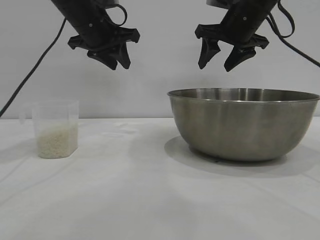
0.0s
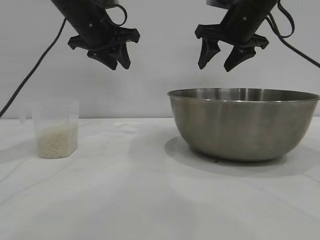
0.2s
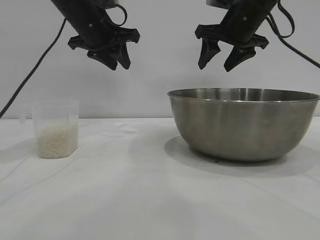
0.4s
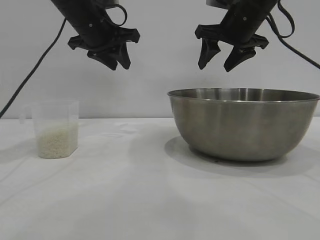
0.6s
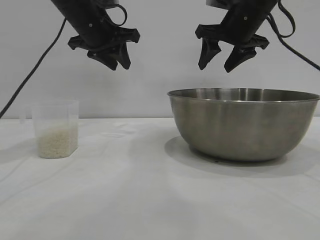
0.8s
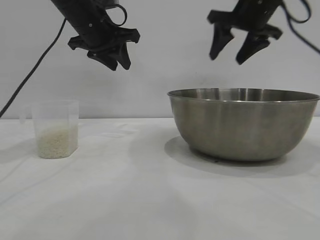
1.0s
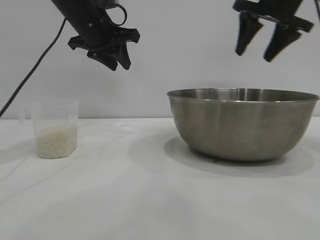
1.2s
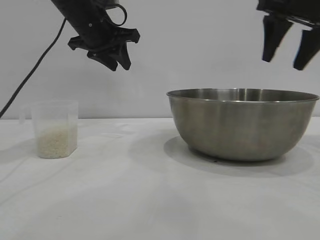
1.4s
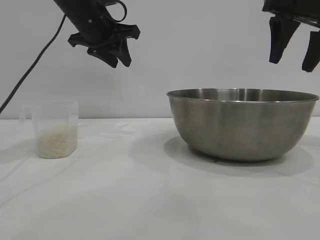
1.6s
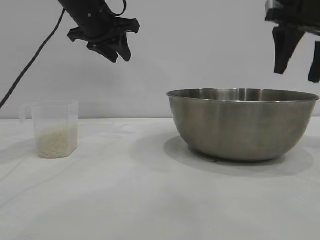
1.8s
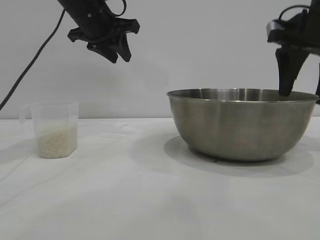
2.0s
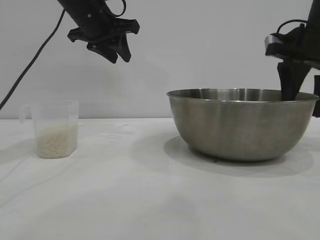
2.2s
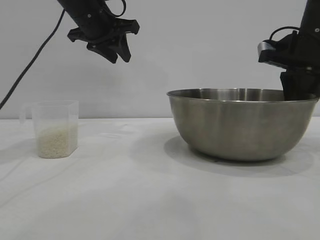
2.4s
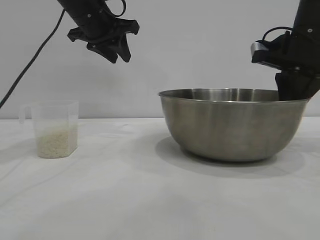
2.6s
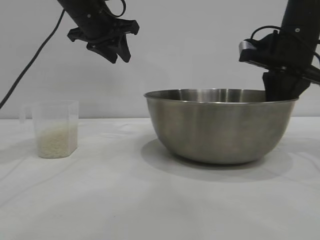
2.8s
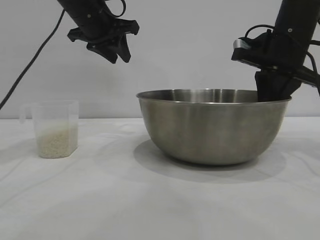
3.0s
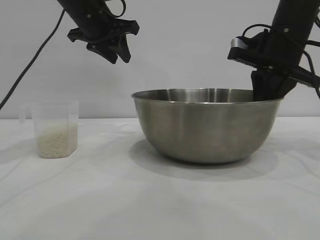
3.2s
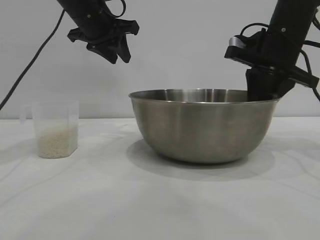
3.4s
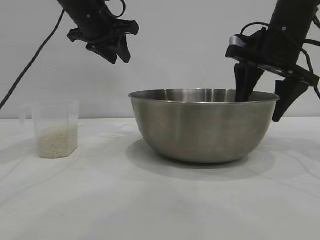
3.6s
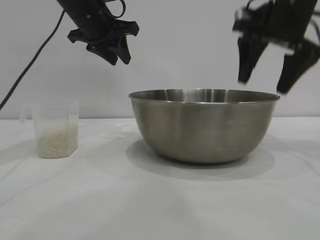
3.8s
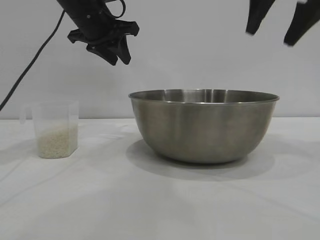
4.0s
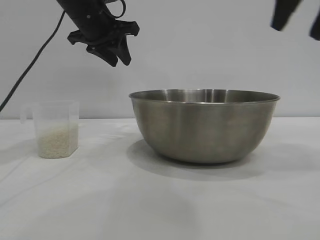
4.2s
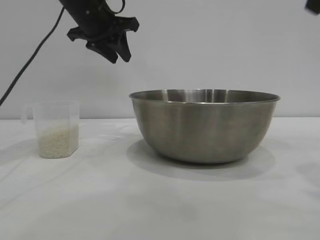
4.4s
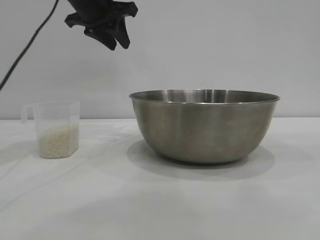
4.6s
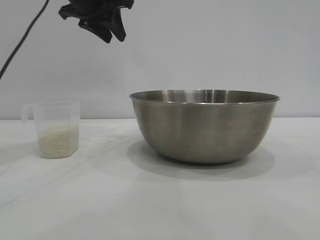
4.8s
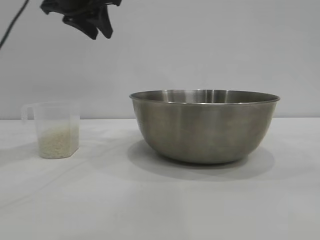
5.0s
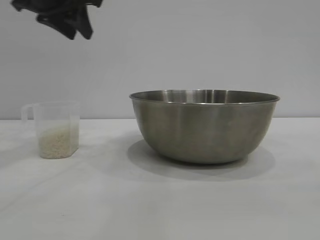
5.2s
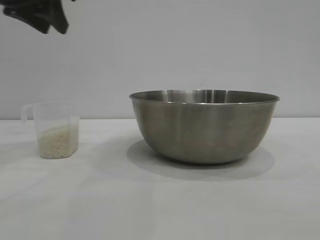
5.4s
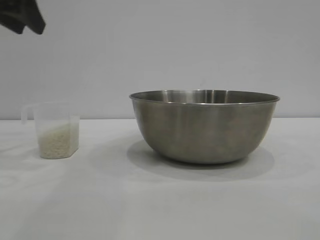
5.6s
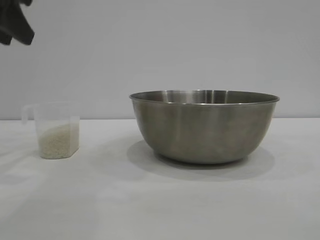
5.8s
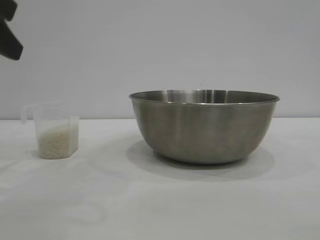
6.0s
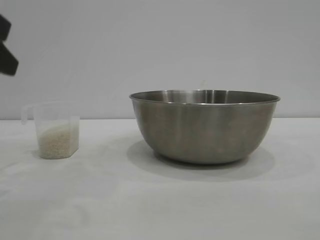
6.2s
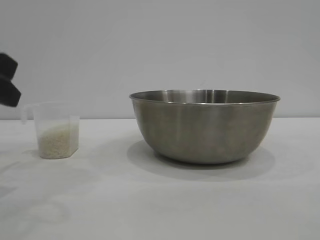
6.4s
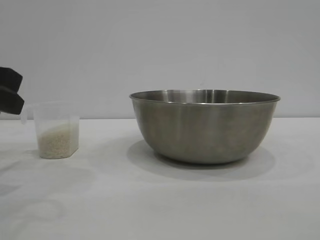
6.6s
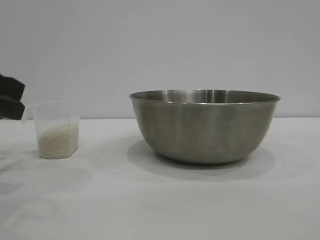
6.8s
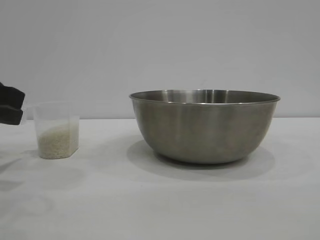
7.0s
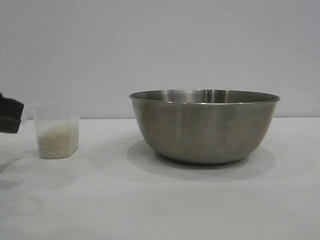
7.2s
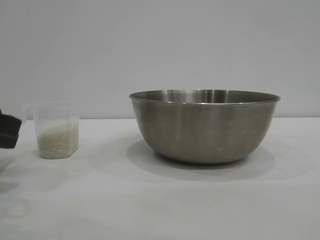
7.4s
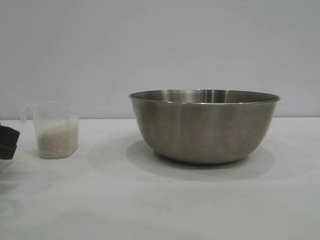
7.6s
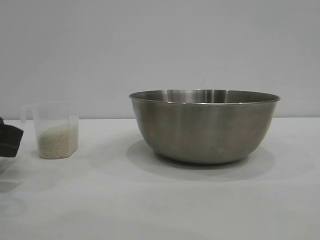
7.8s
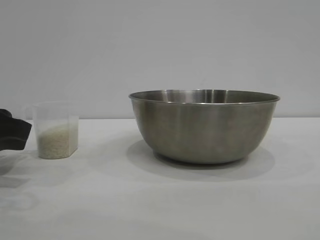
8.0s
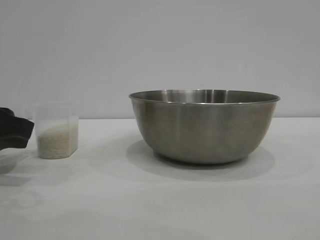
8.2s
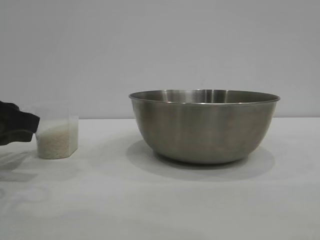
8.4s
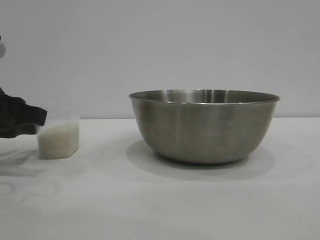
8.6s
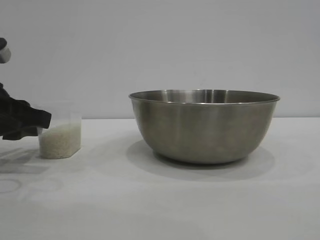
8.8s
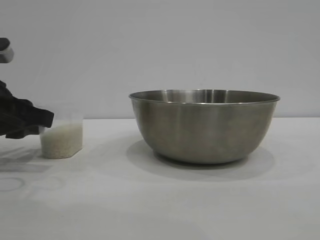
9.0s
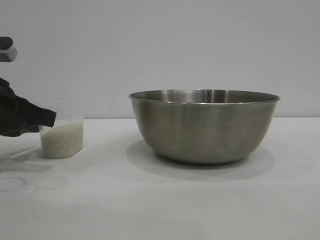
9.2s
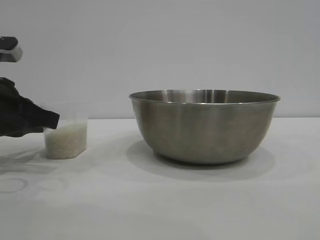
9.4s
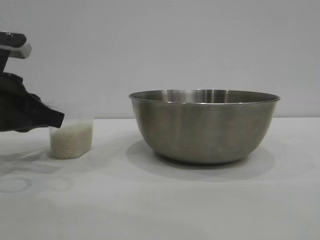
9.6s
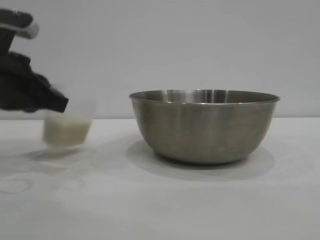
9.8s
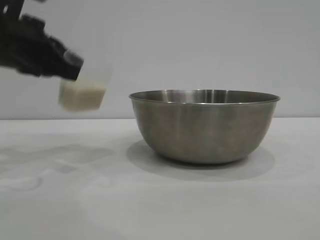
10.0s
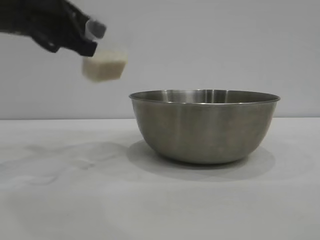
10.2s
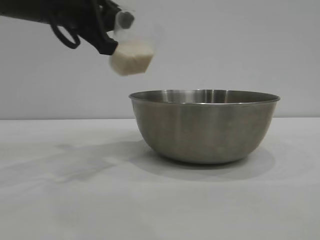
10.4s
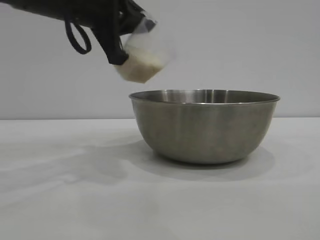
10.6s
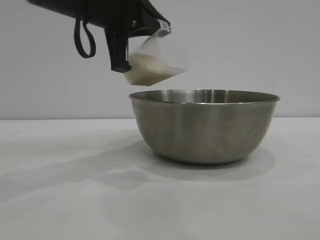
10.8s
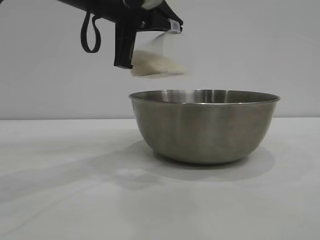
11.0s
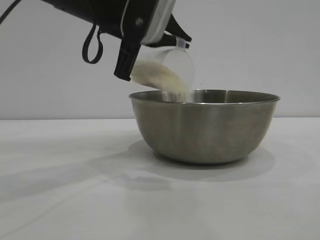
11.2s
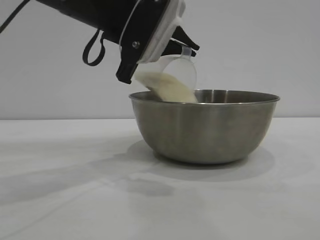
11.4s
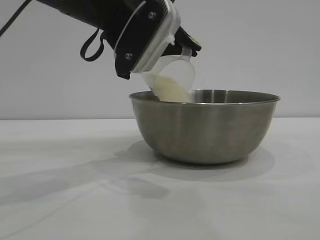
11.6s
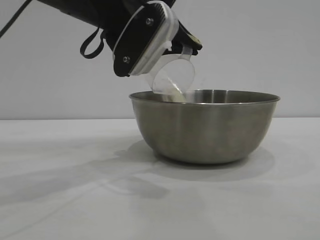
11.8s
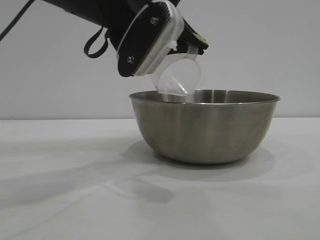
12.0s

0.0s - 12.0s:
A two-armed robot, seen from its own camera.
Task of the whole recording: the right gripper grasp the rice container and place it in the center of the table, the left gripper grasp the rice scoop and pour the rice into the rice container.
Step, 0.0s - 3.8s: Move the bowl to the center of view with the right gripper.
Step, 4.0s - 9.8s: Pick up the cup with rice in it with the left gripper.

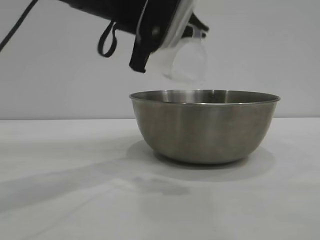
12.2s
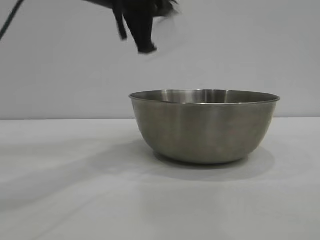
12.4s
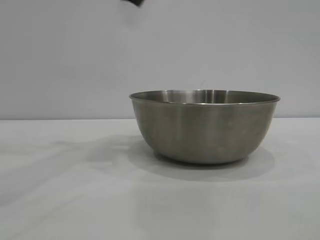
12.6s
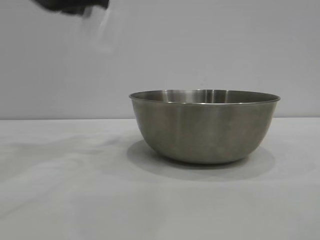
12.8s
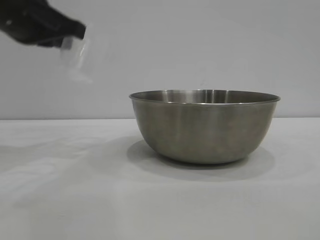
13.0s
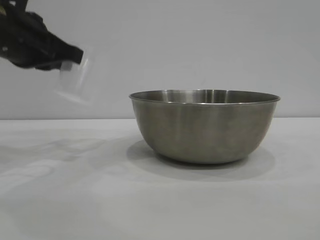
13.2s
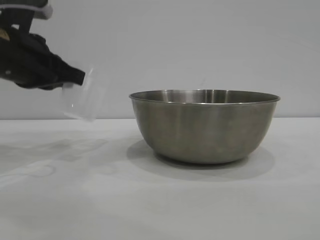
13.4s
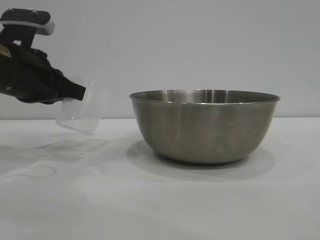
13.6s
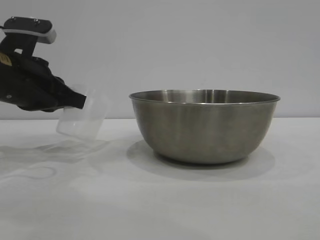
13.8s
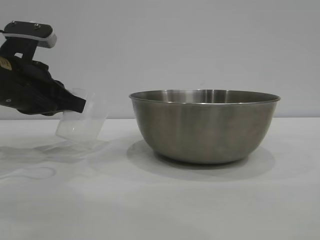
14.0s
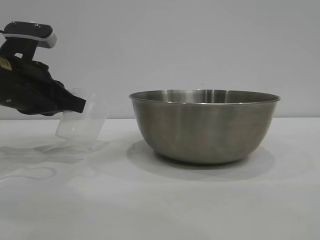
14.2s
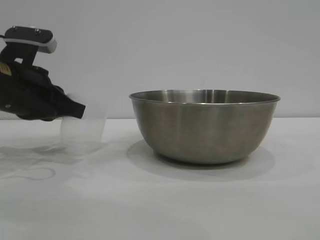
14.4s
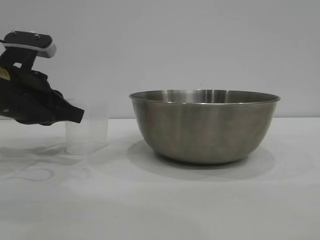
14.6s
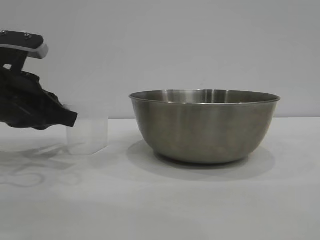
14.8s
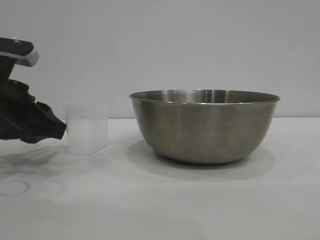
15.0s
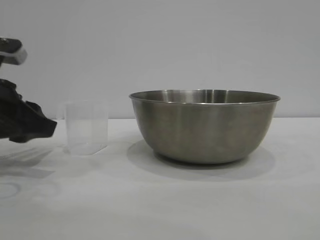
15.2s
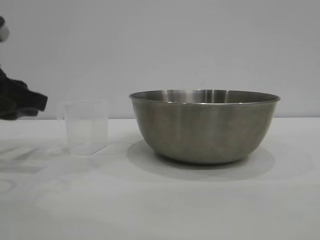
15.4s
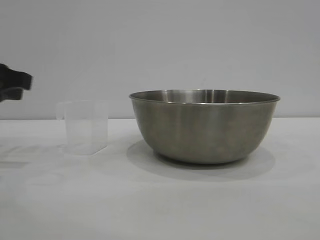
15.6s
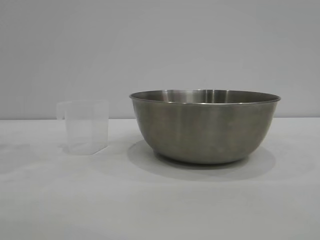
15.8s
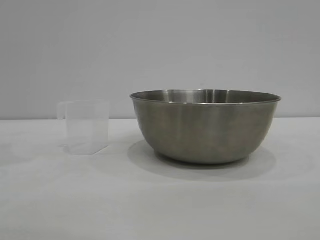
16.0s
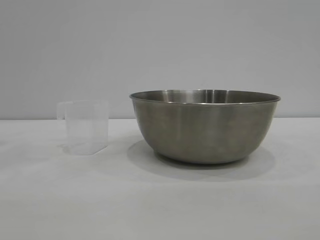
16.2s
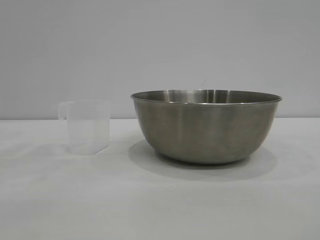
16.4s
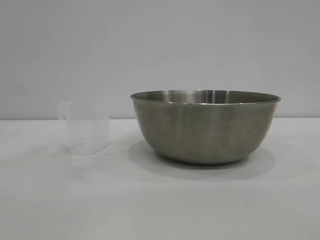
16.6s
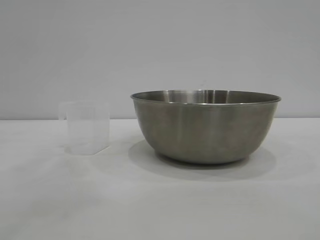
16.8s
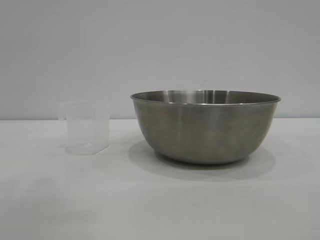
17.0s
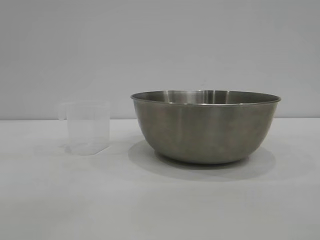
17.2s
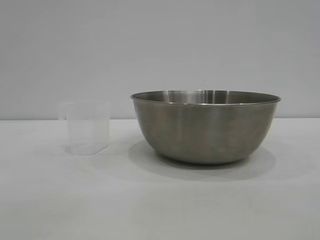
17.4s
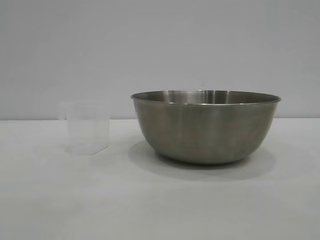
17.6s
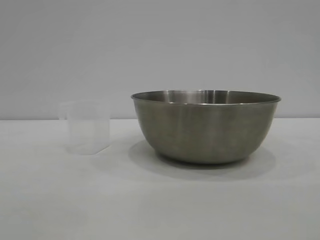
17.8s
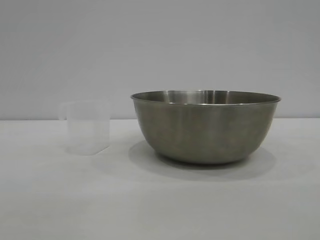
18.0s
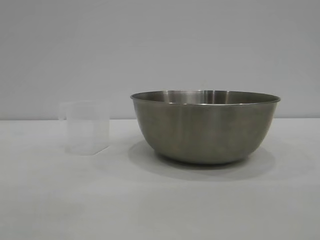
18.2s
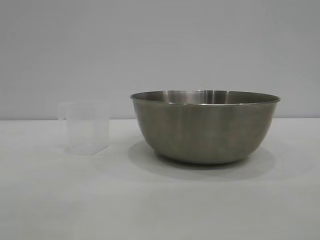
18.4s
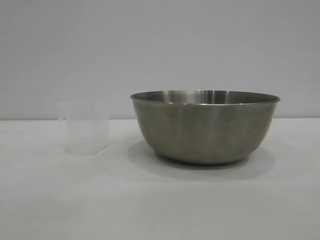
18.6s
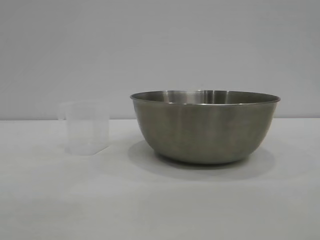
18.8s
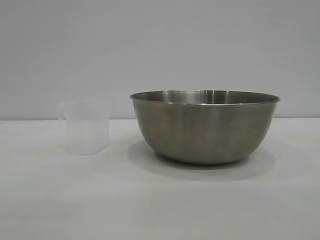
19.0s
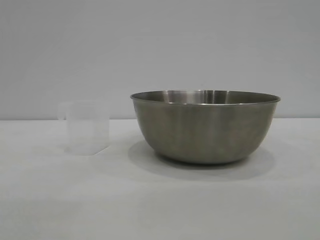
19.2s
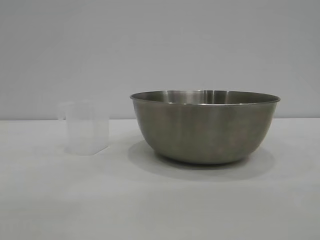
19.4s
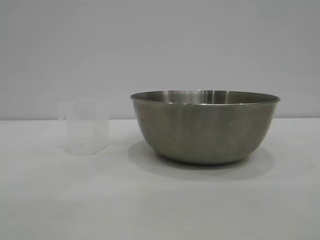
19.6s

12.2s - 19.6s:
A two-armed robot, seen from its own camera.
Task of the whole recording: the right gripper grasp the rice container and place it in the center of the table, the left gripper grasp the rice scoop and pour the rice into the rice container.
Step, 12.6s - 15.2s: Place the cup on the table with the left gripper.

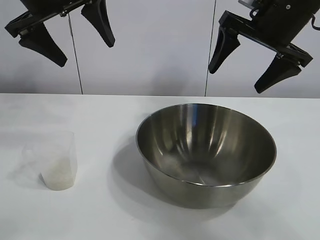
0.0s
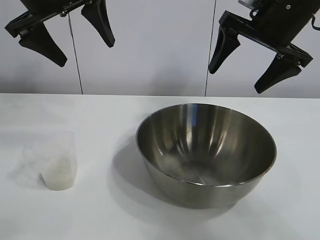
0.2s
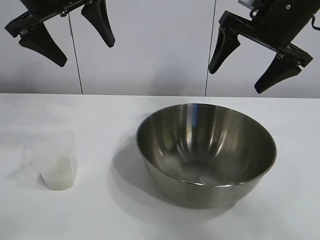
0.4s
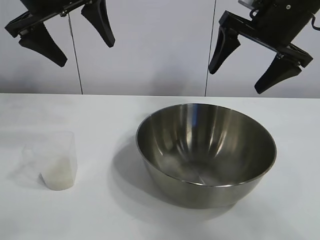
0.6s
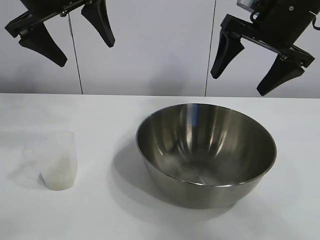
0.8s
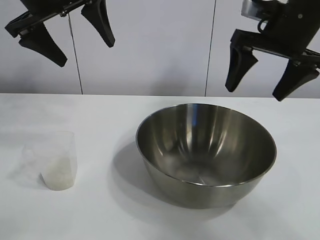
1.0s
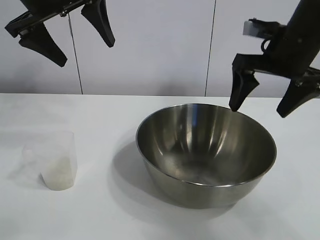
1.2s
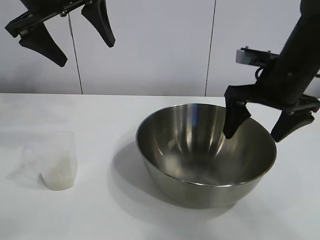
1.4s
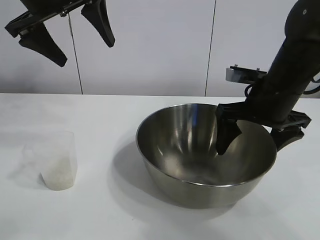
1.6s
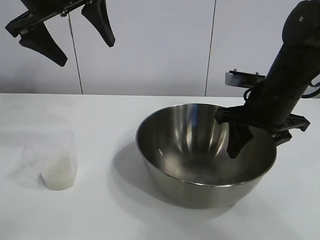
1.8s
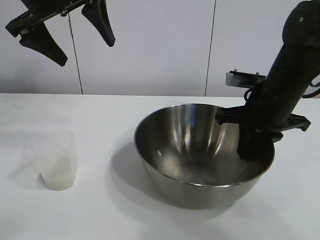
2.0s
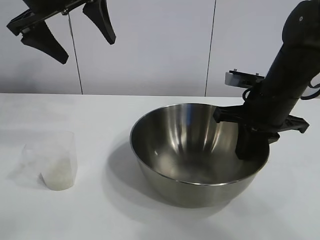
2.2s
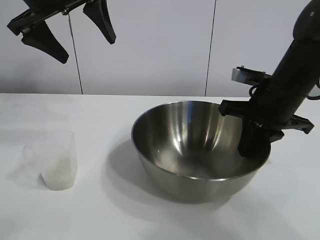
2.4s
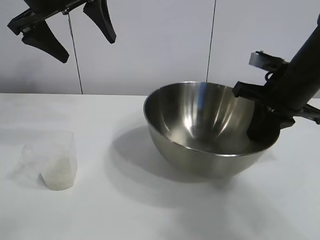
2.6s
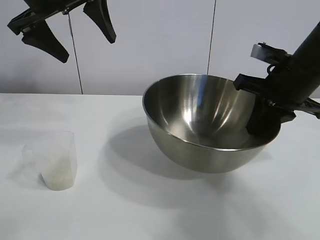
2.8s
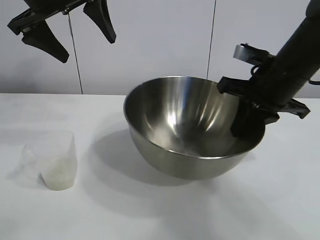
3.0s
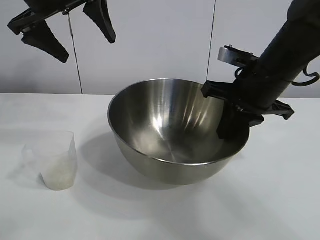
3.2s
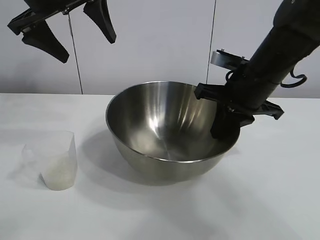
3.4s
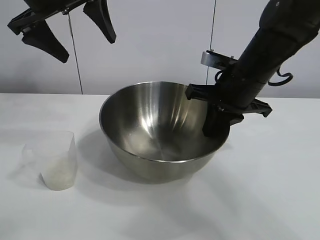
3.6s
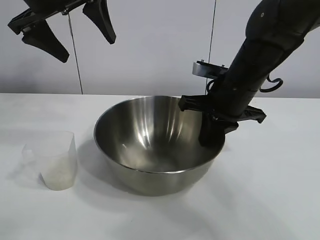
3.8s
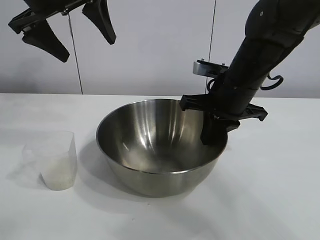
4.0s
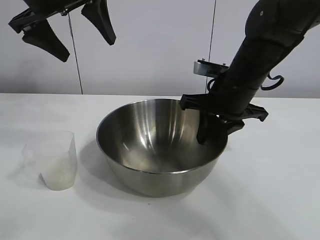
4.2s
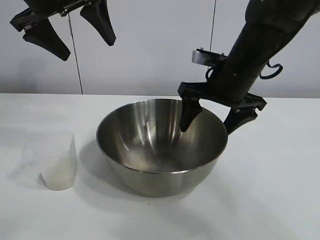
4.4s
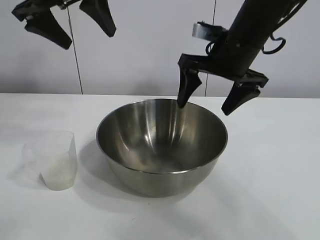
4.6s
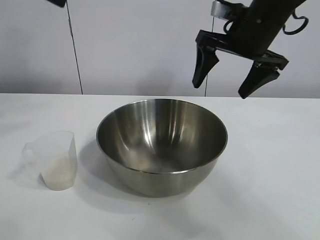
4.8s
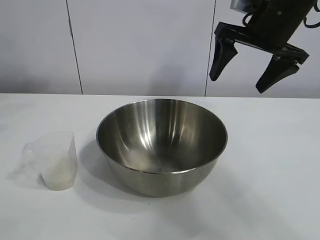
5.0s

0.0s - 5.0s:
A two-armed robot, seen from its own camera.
Task of the whole recording: the right gripper grasp the rice container and place it in the center of the table, the left gripper grasp the rice scoop and pour the rice into the rice container.
Step, 0.8s - 4.2s: Move the bowl in the center of view with right gripper.
